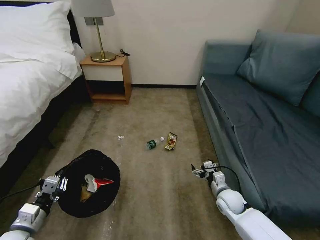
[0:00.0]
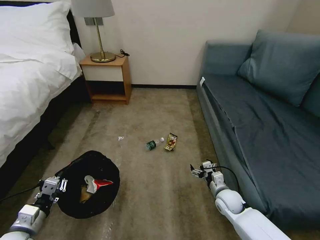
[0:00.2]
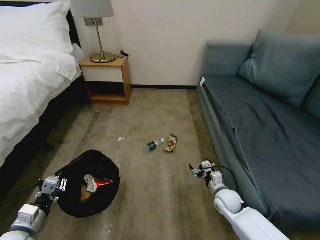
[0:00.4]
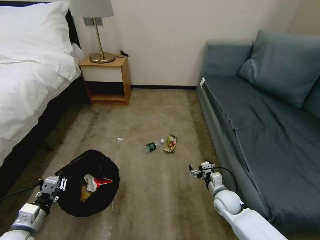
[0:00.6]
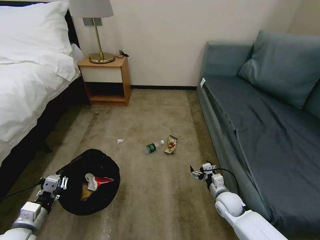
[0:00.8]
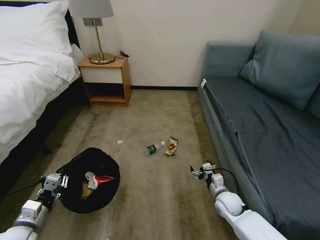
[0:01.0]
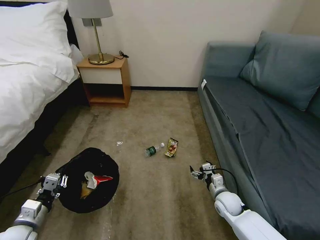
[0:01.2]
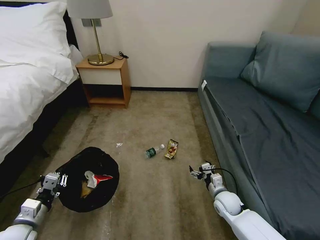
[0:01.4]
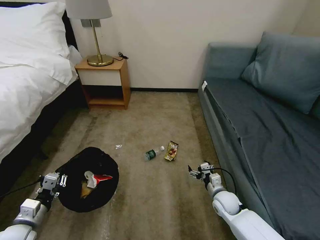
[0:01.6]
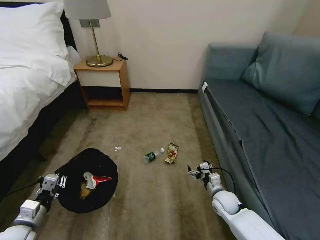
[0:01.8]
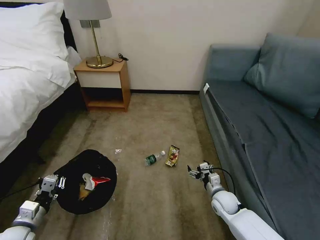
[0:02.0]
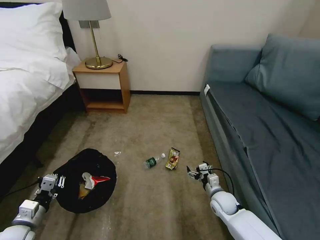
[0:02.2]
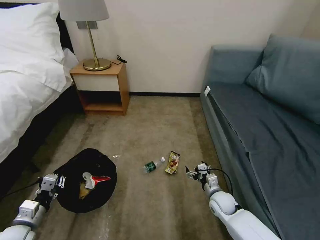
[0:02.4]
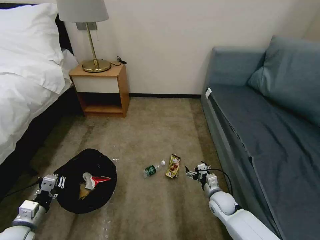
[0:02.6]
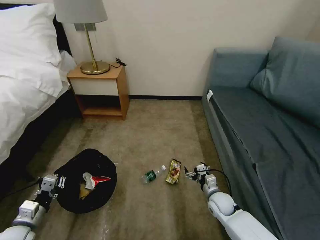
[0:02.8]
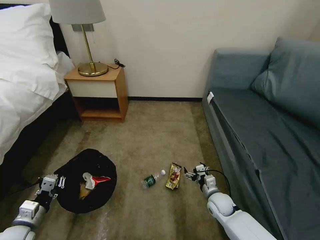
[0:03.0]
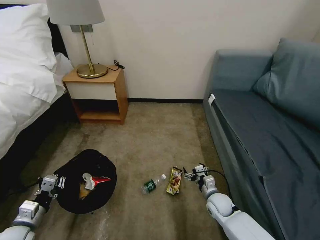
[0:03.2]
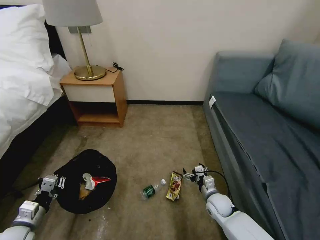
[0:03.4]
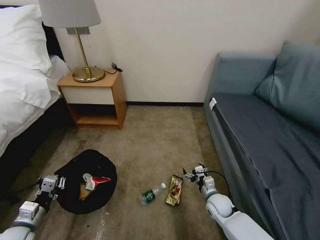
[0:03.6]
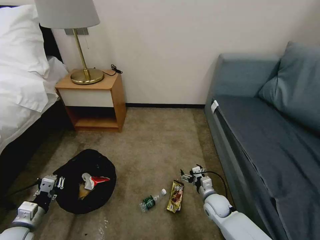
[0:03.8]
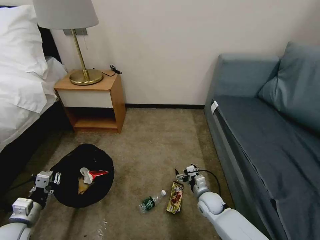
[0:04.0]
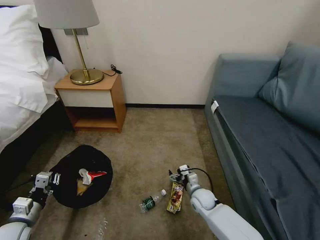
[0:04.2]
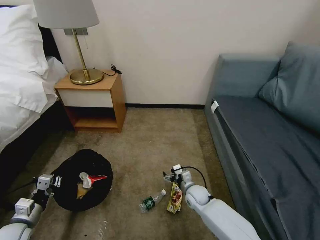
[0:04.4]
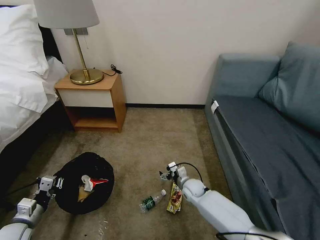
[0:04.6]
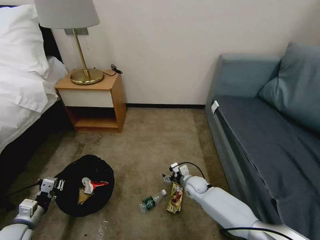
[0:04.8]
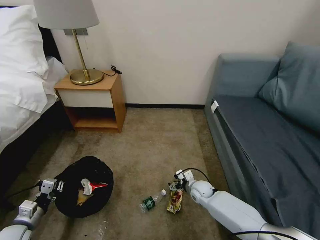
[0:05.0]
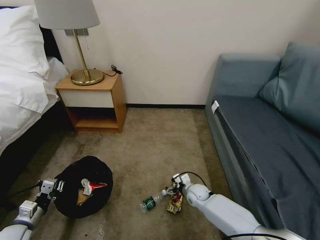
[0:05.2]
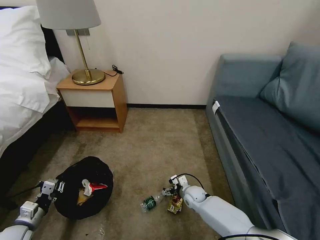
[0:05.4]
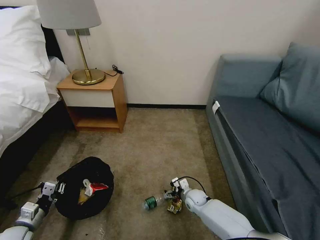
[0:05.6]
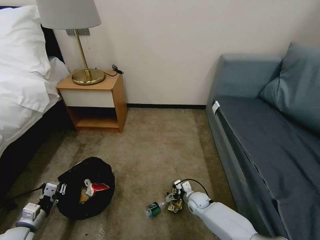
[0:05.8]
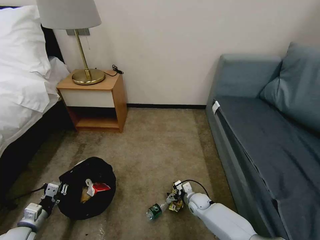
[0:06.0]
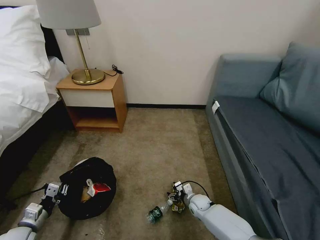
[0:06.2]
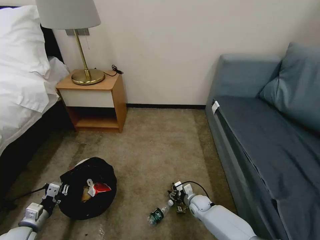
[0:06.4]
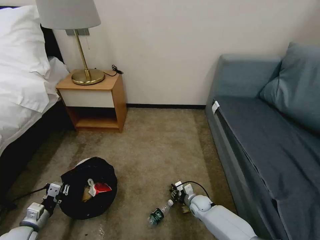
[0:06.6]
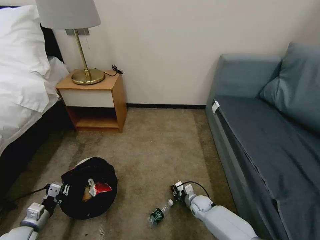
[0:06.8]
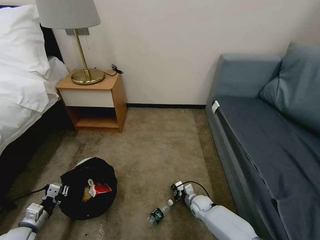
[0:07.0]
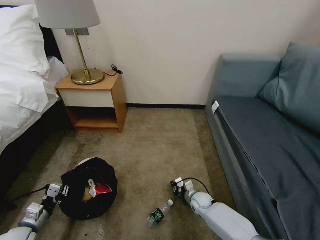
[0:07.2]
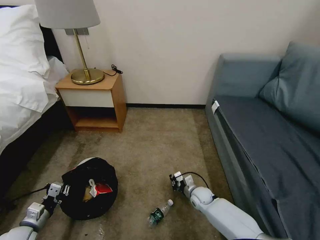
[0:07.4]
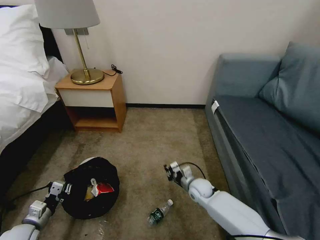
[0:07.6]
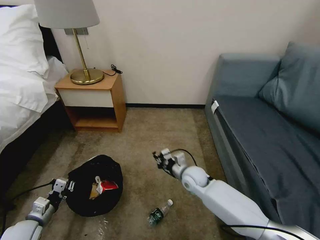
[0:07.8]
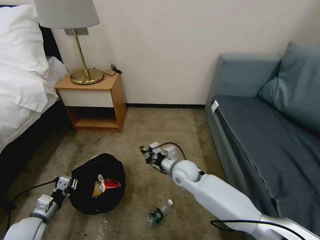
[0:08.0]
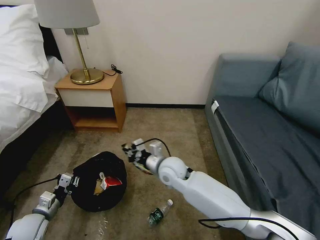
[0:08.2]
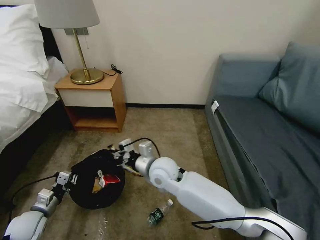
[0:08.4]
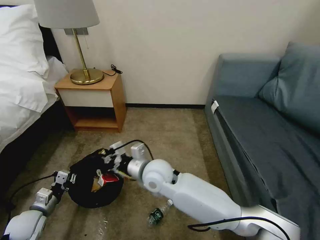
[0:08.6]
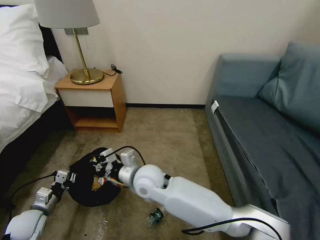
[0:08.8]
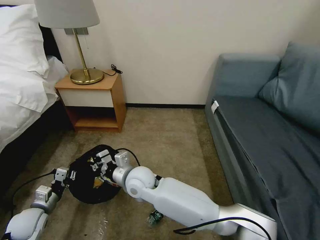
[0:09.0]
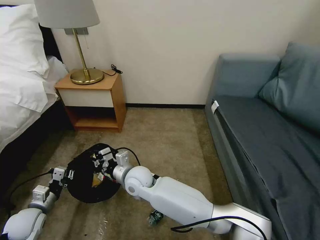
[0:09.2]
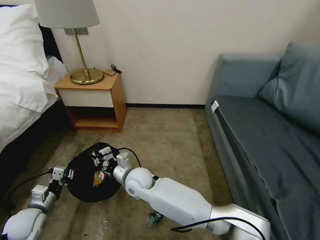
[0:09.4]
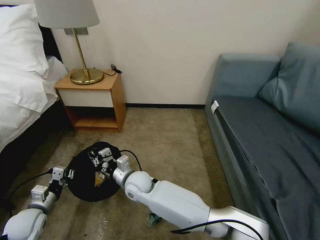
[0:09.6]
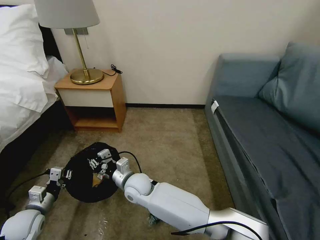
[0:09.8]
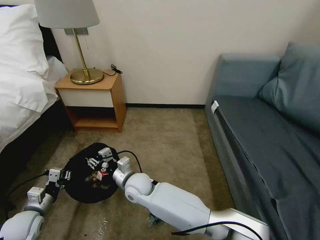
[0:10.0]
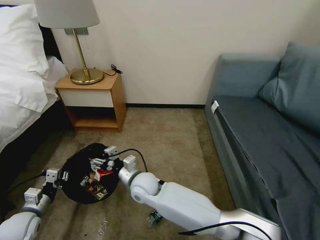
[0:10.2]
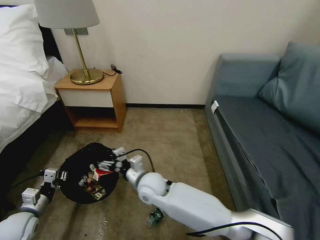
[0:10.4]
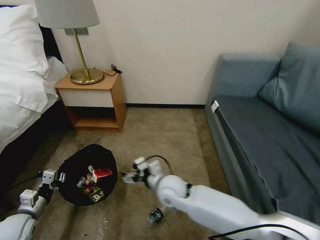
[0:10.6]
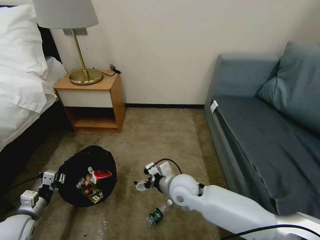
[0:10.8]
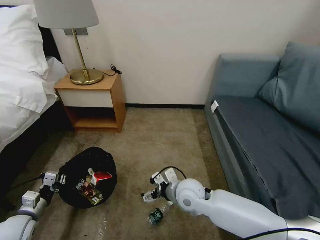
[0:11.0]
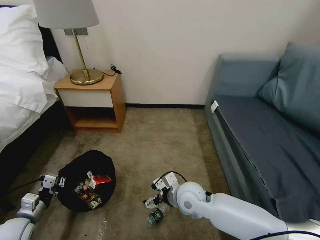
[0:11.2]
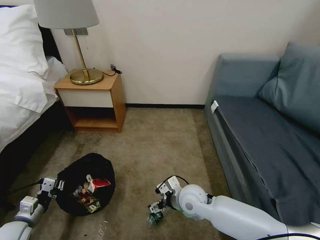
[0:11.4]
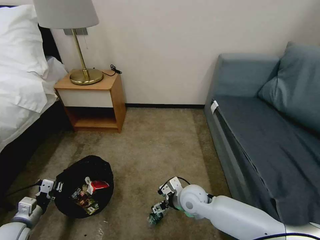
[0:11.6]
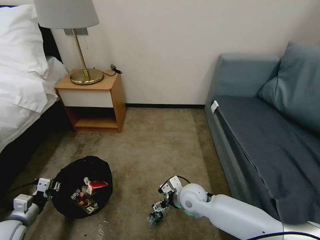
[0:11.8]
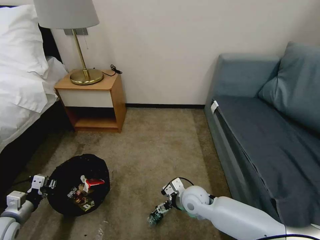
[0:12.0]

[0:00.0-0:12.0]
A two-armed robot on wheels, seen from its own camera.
Task of the whole recording: Pick up the trash bin, then pick up the garbage on the floor and place it into the trash bin.
0:00.0 to 0:01.6: The grippers move only a little.
0:03.0 to 0:04.4: The right gripper is displaced to the left by roughly 10 cm.
0:04.4 to 0:06.0: The right gripper shifts some 5 cm downward.
0:06.0 to 0:07.6: The right gripper goes roughly 10 cm upward, and closes up.
0:07.6 to 0:09.0: The right gripper shifts roughly 30 cm to the left and upward.
0:09.0 to 0:10.4: The right gripper opens up.
0:10.4 to 0:12.0: The right gripper heads to the right, covering approximately 15 cm.

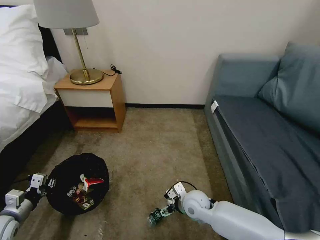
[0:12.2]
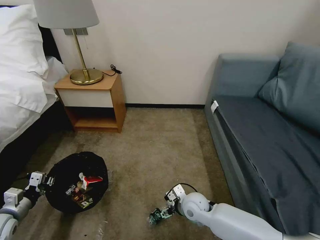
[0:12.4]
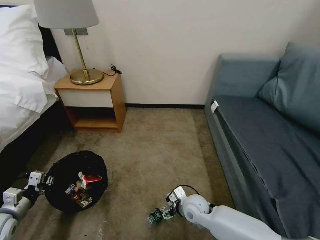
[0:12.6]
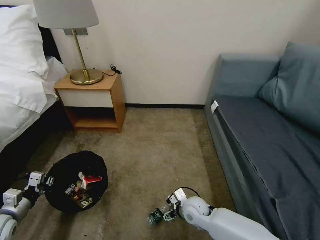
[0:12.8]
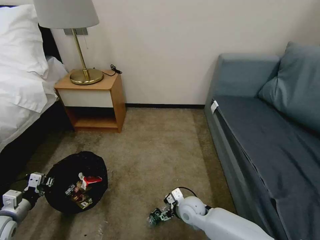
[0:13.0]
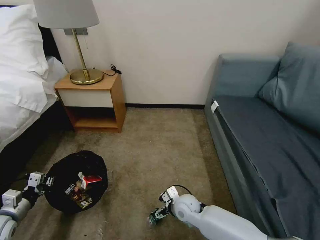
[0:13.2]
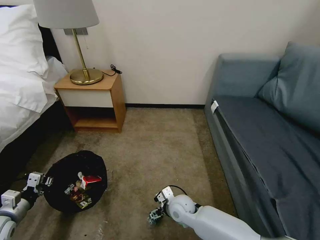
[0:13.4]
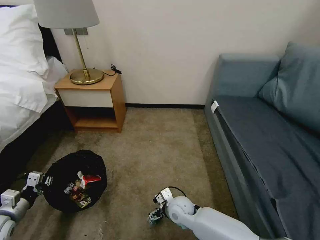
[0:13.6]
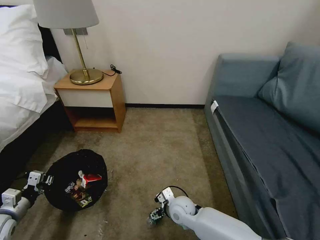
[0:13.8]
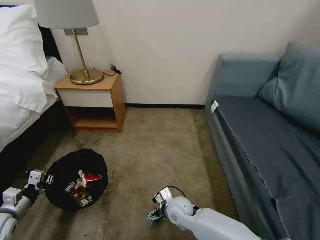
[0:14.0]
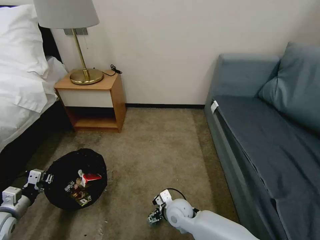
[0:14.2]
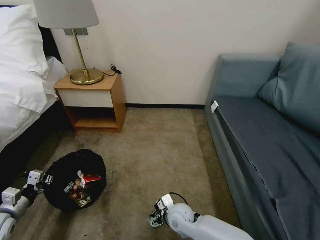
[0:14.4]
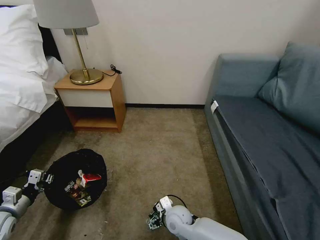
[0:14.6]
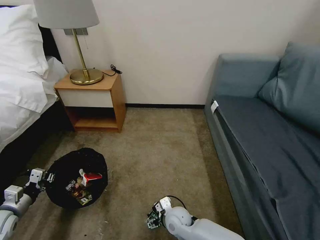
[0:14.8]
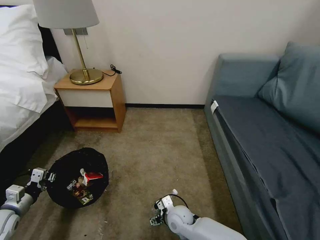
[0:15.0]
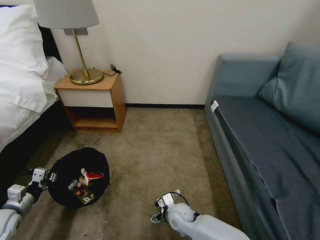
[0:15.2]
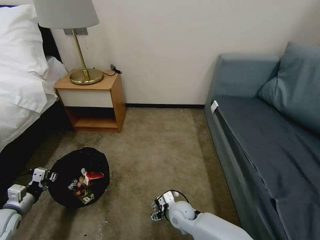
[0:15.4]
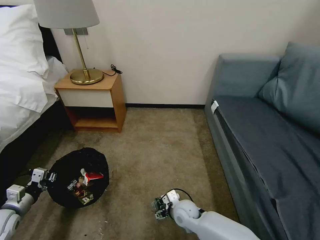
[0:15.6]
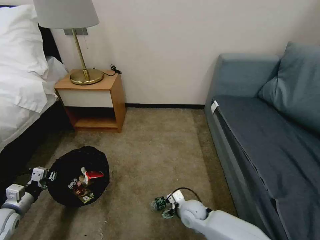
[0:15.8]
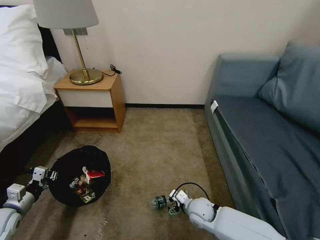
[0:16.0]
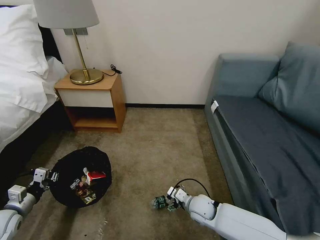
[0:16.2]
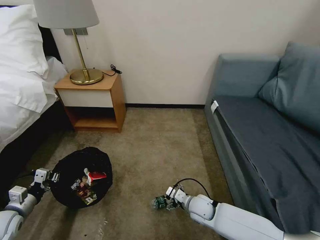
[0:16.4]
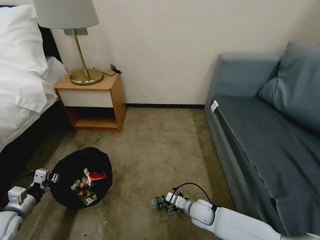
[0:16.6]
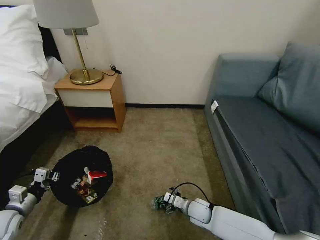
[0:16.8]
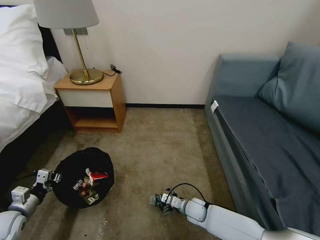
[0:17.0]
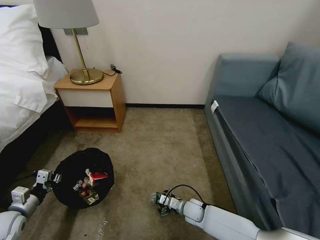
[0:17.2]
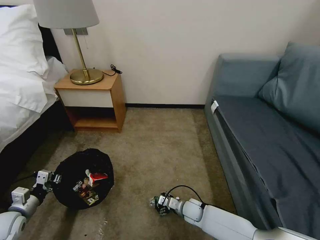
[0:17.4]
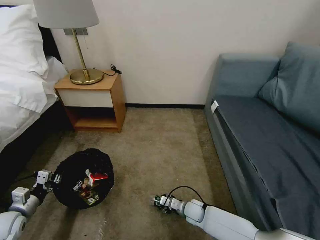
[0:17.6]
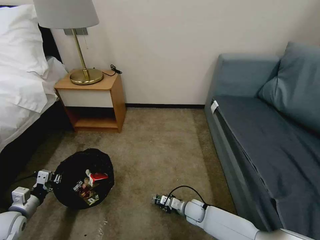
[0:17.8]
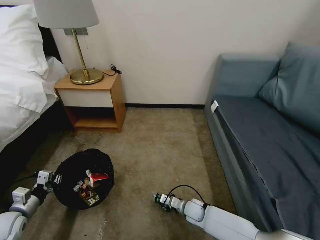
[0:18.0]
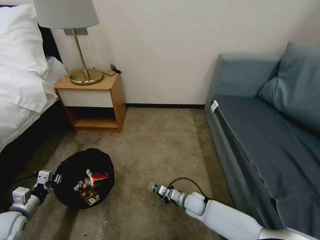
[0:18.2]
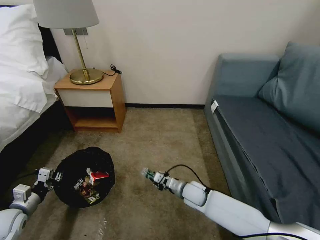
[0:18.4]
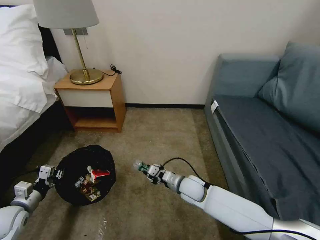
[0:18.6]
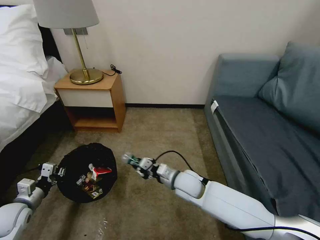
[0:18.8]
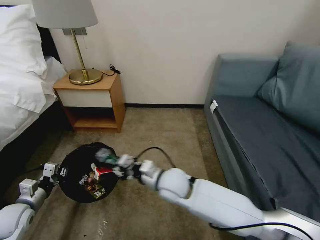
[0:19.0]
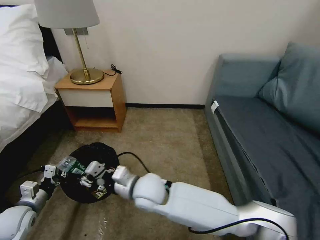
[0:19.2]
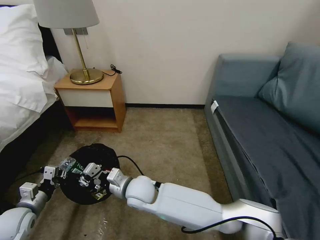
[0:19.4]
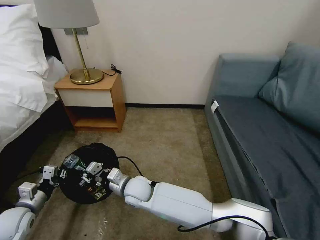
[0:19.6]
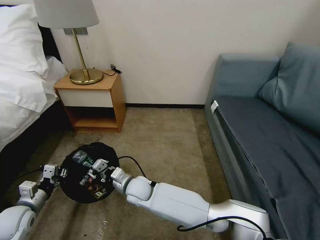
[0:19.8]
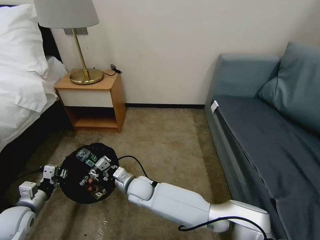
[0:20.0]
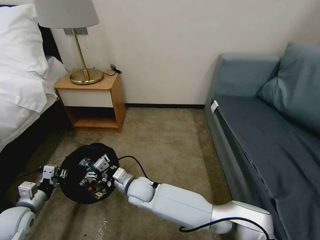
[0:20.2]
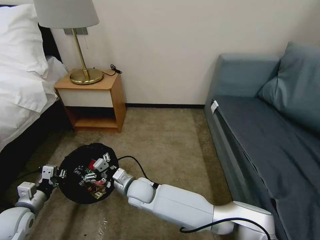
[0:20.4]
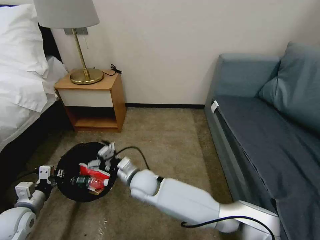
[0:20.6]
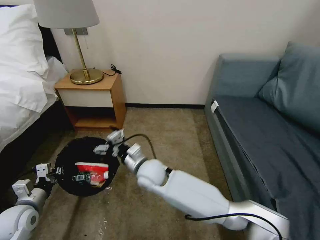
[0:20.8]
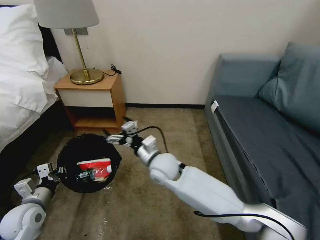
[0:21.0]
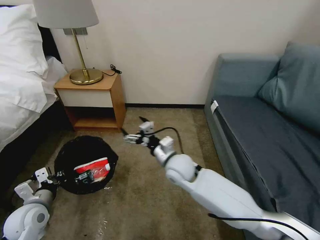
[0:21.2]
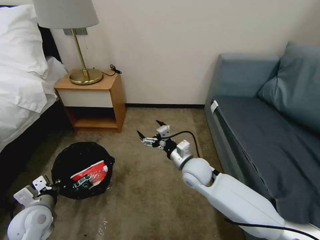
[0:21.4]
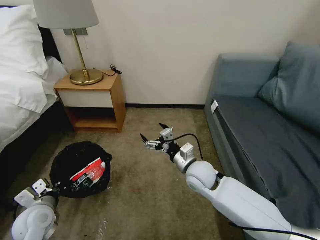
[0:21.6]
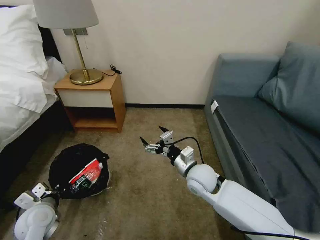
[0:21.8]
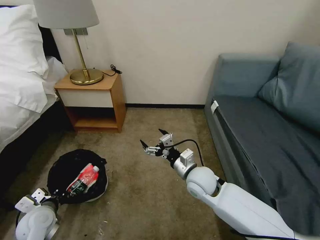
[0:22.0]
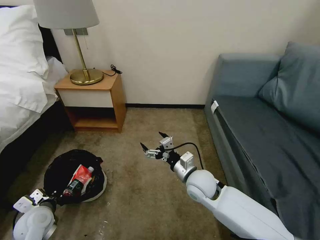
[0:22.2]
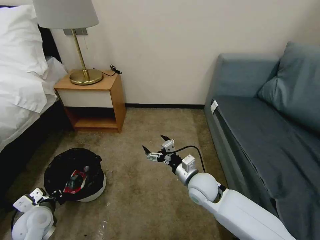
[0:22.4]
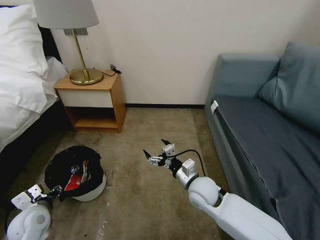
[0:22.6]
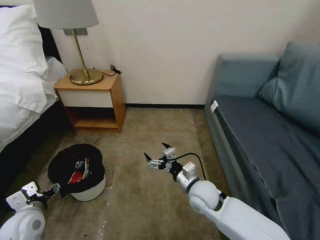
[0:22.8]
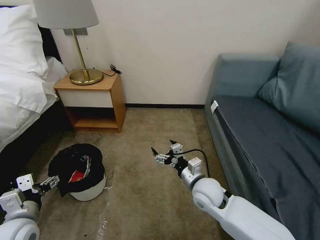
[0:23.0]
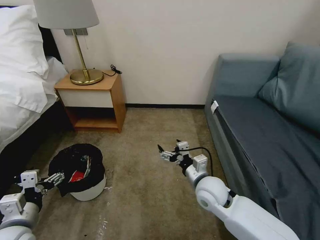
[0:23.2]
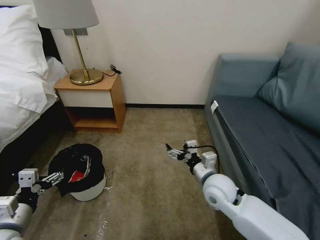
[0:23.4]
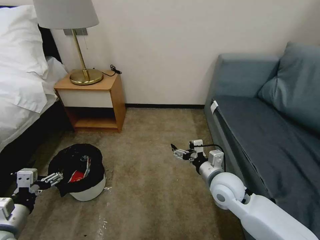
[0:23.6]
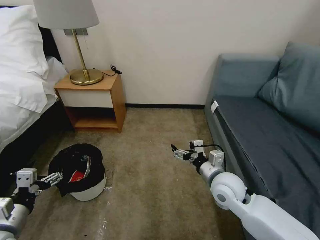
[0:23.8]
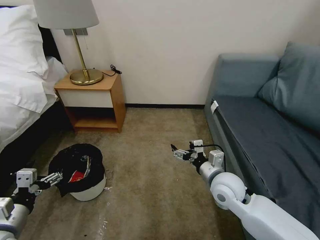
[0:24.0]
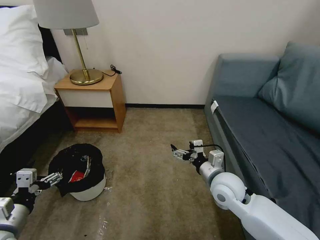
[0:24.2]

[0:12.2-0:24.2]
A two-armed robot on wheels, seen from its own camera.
Task of the whole recording: Pick up the trash bin, then pick up the garbage on the floor and place it into the trash bin.
0:12.2 to 0:13.8: The right gripper heads to the left, covering roughly 5 cm.
0:13.8 to 0:15.2: There are only small adjustments of the grippers.
0:15.2 to 0:16.6: The right gripper is displaced to the right by roughly 10 cm.
0:16.6 to 0:18.2: The right gripper changes place by approximately 5 cm, and closes.
0:18.2 to 0:19.8: The right gripper travels to the left and upward by some 30 cm.
0:19.8 to 0:21.2: The left gripper moves to the right, approximately 5 cm, while the right gripper shifts roughly 20 cm to the right and upward, and opens.
0:21.2 to 0:22.6: The right gripper heads to the right, backward and downward, covering about 10 cm; the left gripper opens.
0:22.6 to 0:24.2: The right gripper travels to the right and upward by roughly 10 cm, while the left gripper travels upward and backward by about 10 cm, and opens its fingers.
